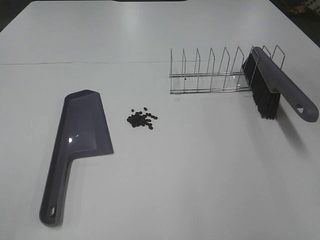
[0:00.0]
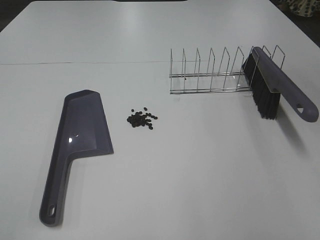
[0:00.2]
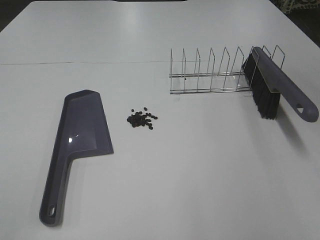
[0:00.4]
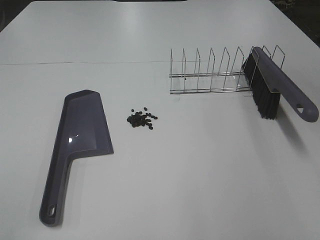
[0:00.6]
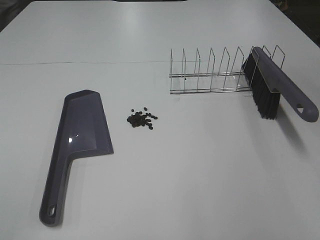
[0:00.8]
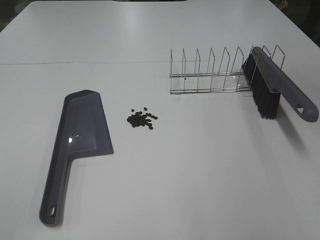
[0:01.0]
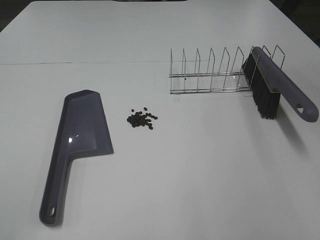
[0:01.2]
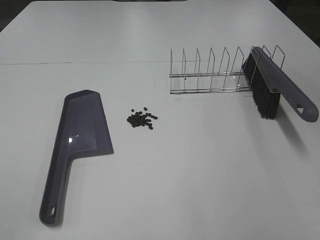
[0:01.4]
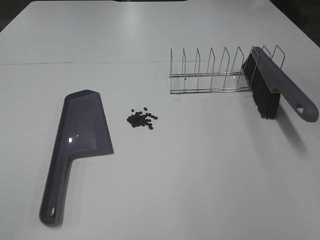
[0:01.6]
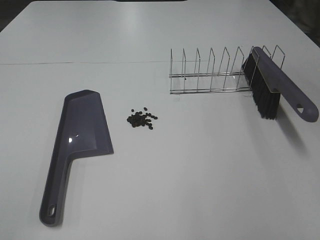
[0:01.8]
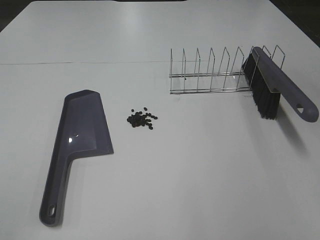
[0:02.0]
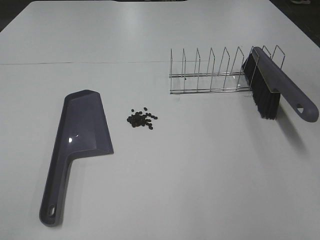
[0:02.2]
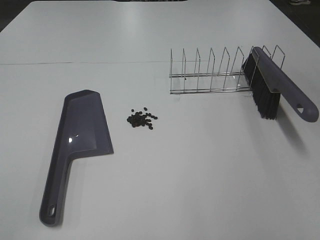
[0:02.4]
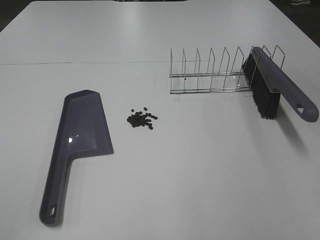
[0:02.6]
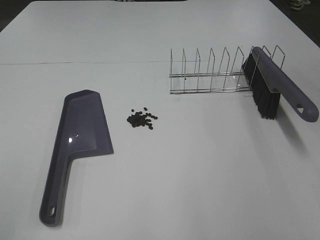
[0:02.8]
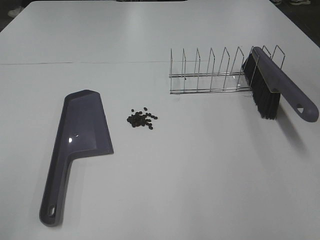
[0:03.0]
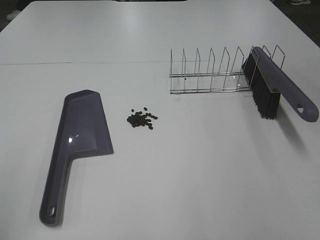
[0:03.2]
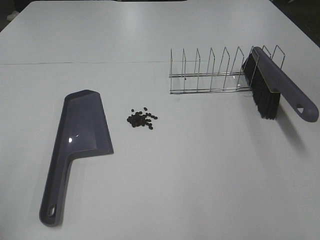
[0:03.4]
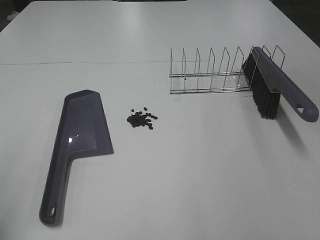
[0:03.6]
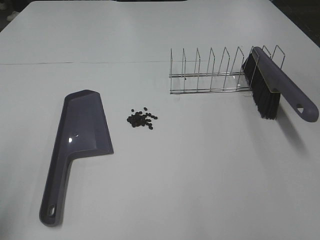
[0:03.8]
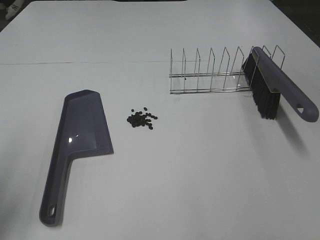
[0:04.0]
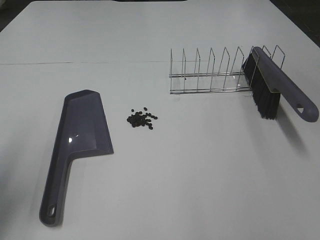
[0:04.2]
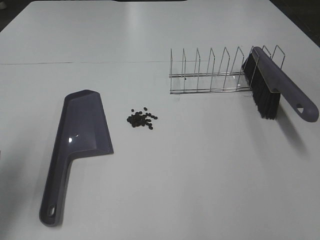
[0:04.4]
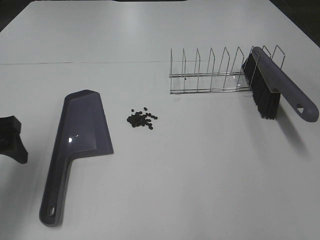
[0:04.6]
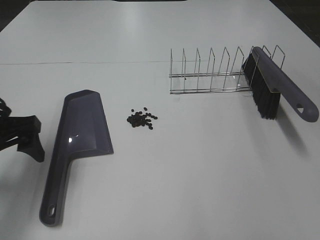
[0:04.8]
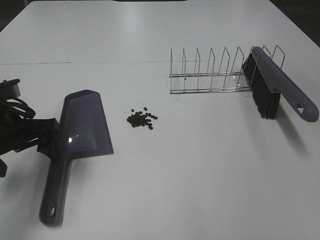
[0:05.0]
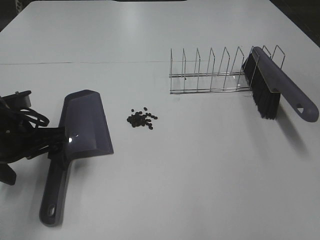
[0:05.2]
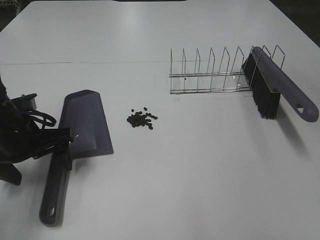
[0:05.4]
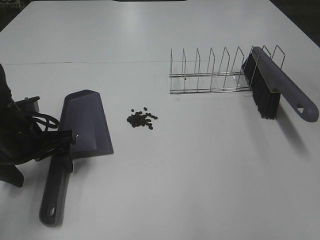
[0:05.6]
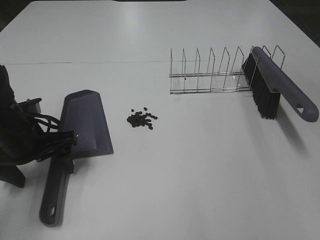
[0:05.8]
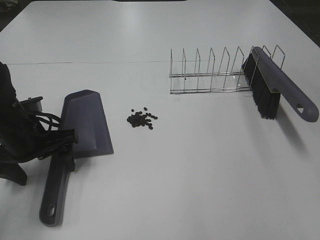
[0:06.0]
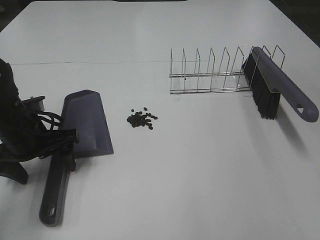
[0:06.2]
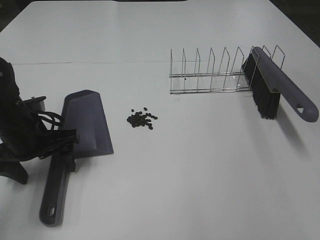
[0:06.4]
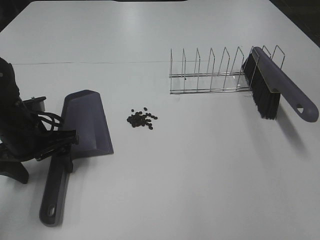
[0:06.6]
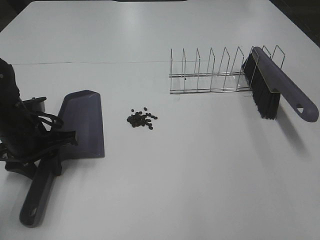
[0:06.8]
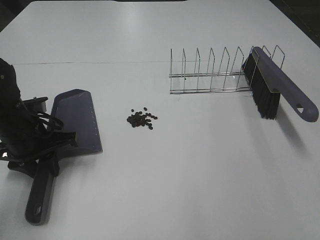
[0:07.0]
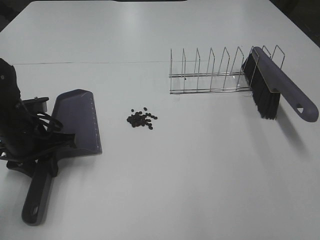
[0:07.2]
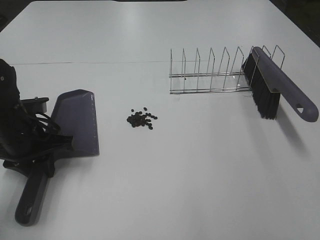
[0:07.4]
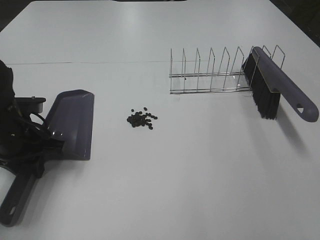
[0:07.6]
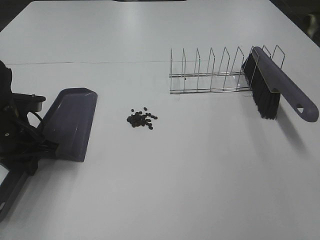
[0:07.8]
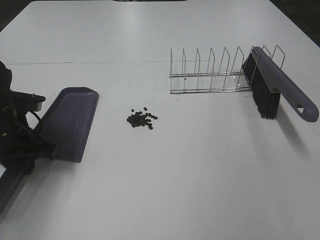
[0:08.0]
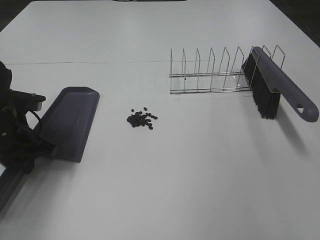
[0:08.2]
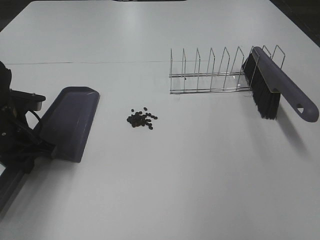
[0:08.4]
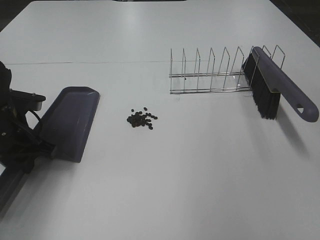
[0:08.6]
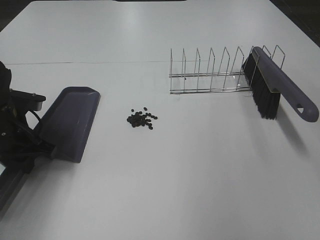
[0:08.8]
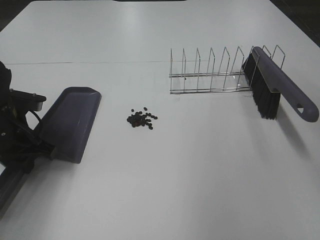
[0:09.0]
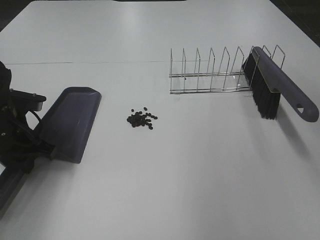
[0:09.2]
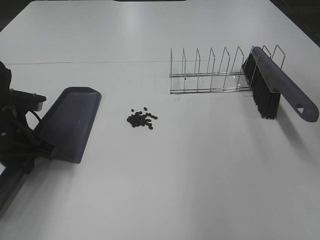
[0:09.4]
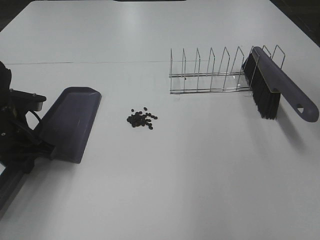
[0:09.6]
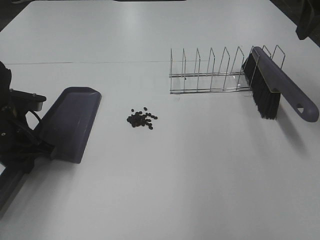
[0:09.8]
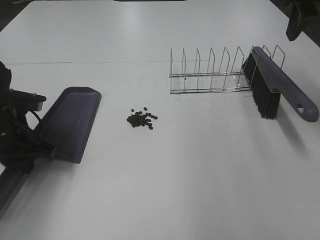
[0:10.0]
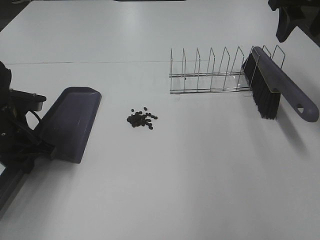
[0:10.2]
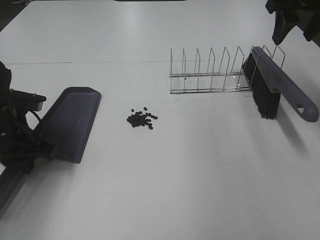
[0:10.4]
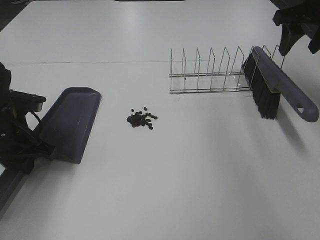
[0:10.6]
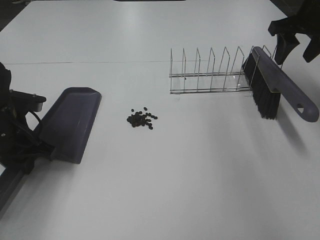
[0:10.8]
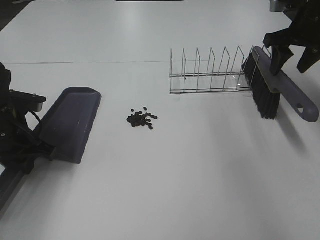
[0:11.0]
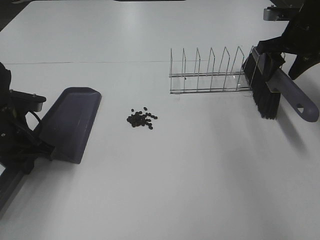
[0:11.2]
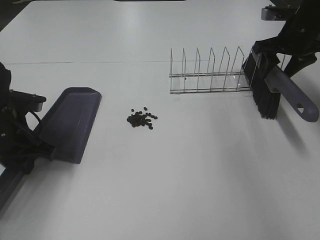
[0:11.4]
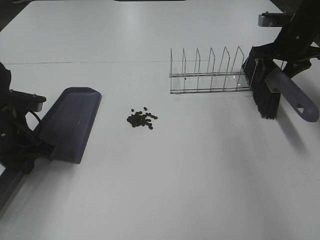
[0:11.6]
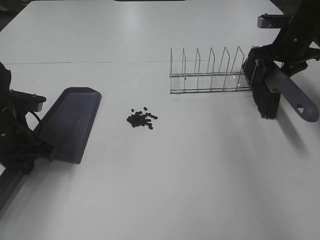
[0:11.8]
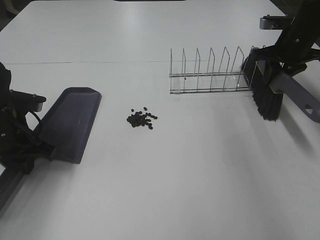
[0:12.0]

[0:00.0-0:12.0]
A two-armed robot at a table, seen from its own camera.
Task of the whole recording: Sweep Coffee Bean.
Step, 0:00.0 to 0:06.8: Left hand: grab the dustpan.
Step, 0:07.8 to 0:12.0: Right hand:grab the broom.
0:00.0 to 0:01.6: Both grippers stay about where they are.
0:01.6 to 0:03.0: The grippers make only small movements.
0:03.0 to 0:04.4: The left gripper goes approximately 20 cm forward and downward.
0:04.4 to 0:06.0: The left gripper moves downward, forward and to the right, some 15 cm.
0:06.0 to 0:07.6: The left gripper closes up.
0:09.0 to 0:10.4: The right gripper heads forward, covering roughly 25 cm.
0:10.4 to 0:12.0: The right gripper is displaced downward by some 15 cm, and closes its fingers.

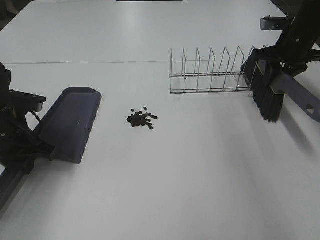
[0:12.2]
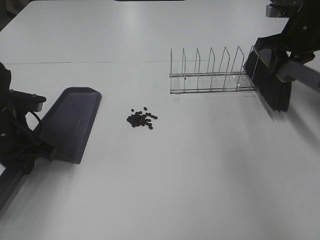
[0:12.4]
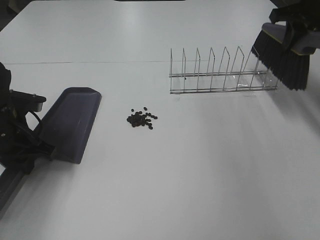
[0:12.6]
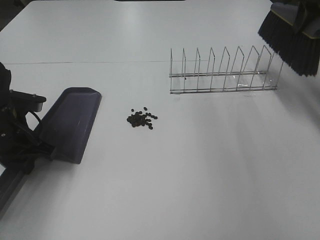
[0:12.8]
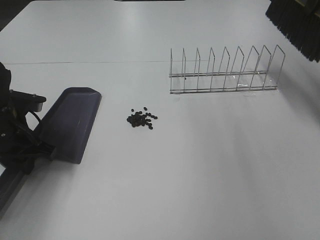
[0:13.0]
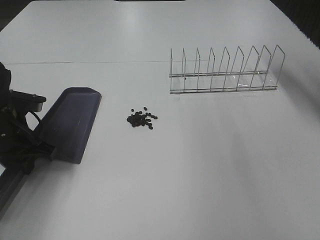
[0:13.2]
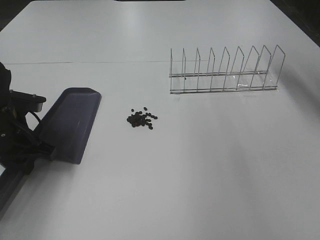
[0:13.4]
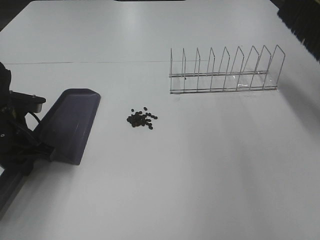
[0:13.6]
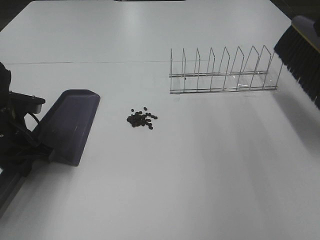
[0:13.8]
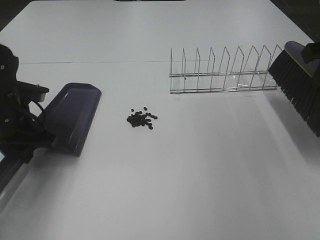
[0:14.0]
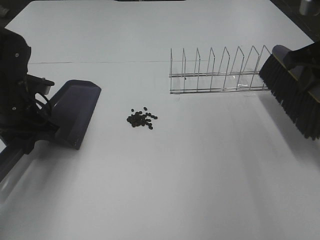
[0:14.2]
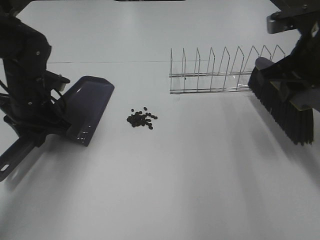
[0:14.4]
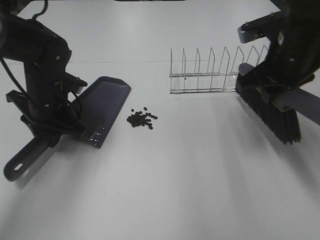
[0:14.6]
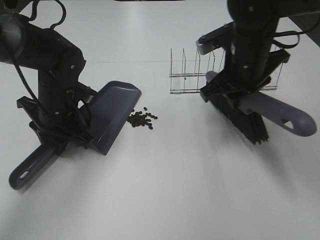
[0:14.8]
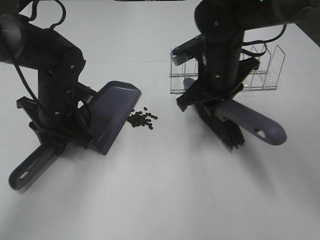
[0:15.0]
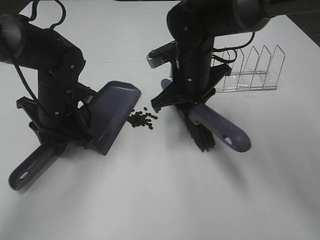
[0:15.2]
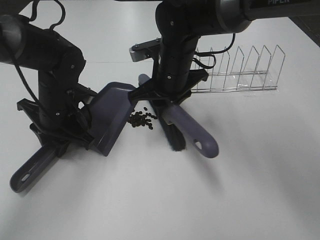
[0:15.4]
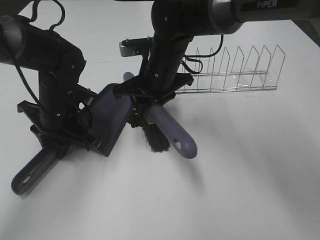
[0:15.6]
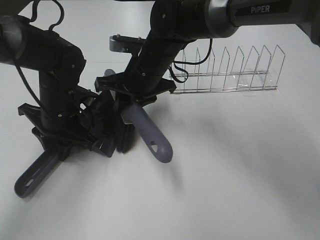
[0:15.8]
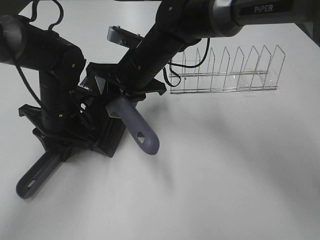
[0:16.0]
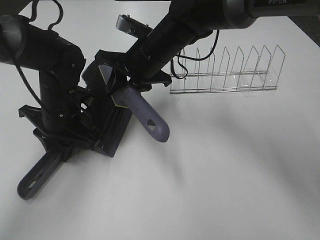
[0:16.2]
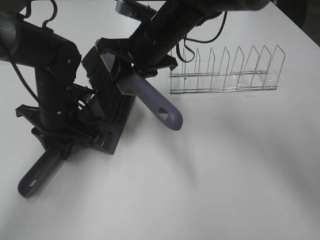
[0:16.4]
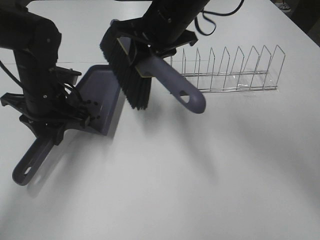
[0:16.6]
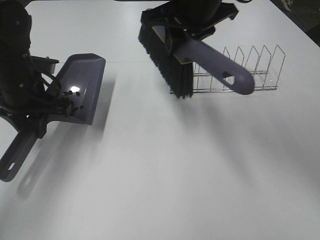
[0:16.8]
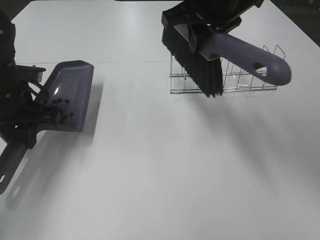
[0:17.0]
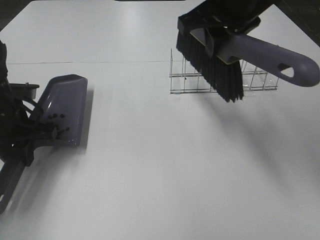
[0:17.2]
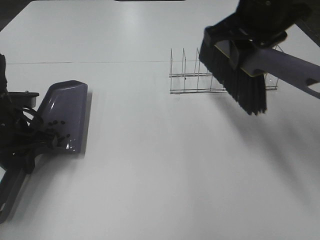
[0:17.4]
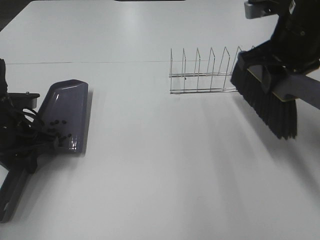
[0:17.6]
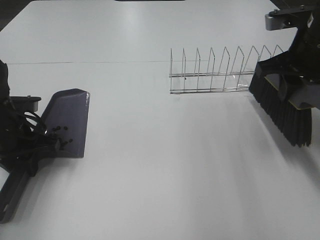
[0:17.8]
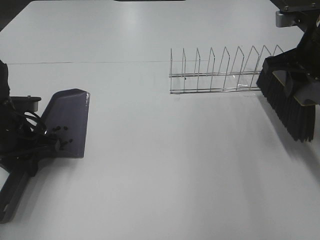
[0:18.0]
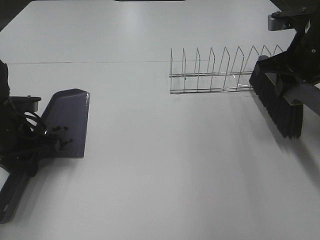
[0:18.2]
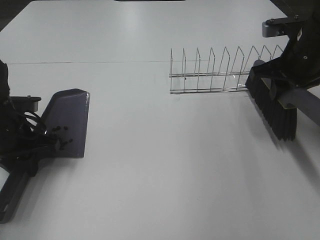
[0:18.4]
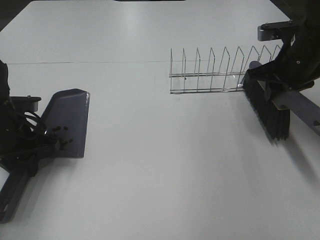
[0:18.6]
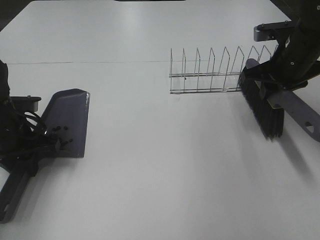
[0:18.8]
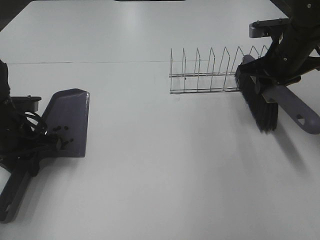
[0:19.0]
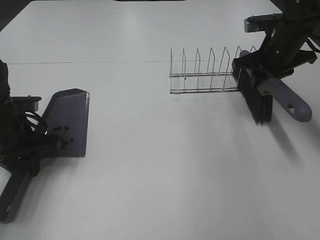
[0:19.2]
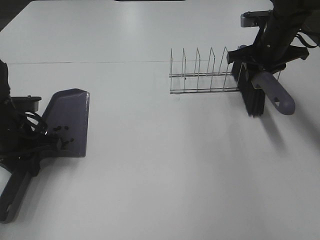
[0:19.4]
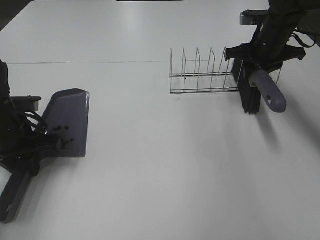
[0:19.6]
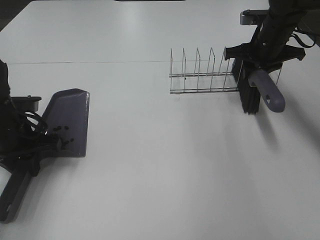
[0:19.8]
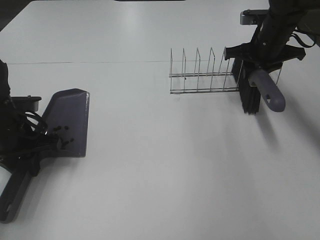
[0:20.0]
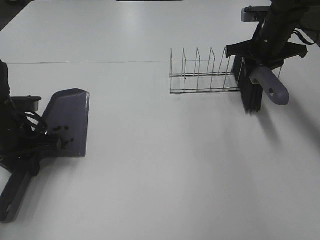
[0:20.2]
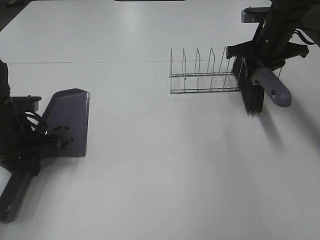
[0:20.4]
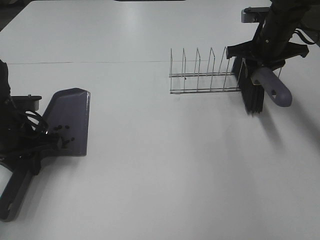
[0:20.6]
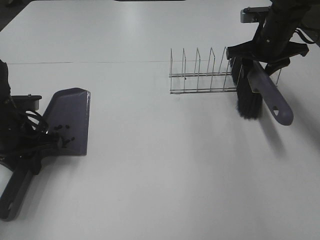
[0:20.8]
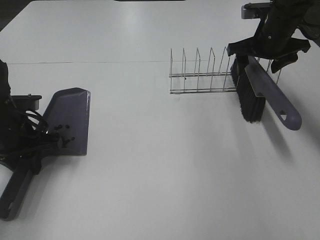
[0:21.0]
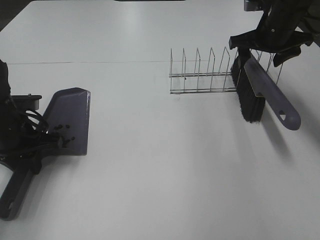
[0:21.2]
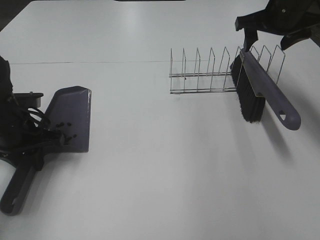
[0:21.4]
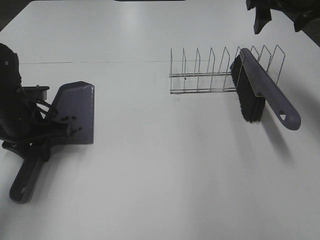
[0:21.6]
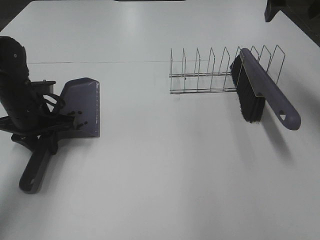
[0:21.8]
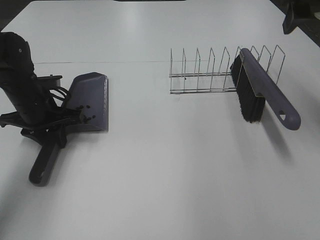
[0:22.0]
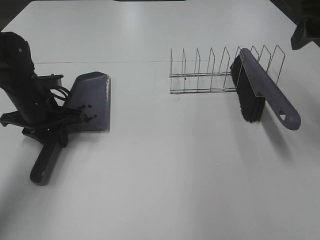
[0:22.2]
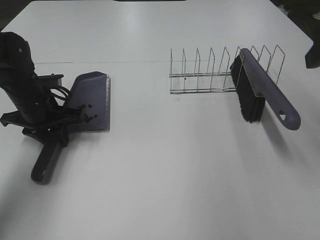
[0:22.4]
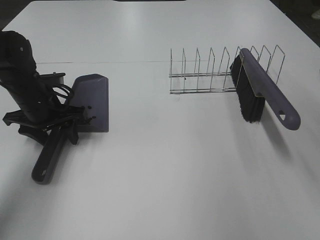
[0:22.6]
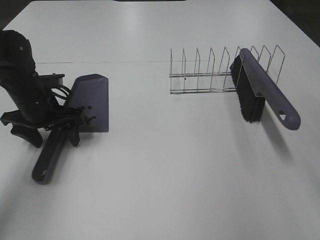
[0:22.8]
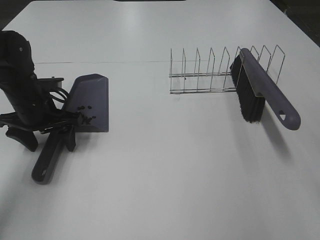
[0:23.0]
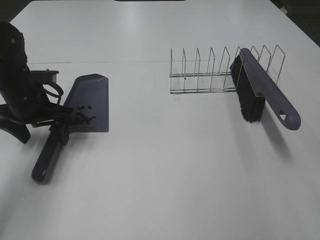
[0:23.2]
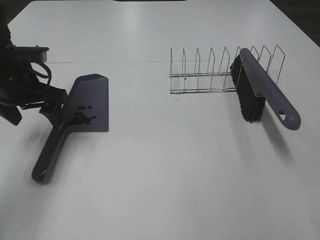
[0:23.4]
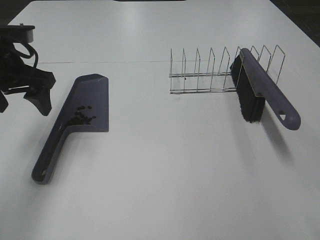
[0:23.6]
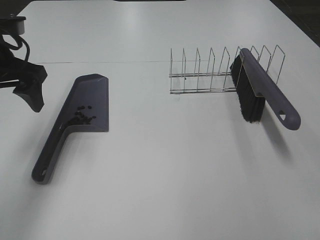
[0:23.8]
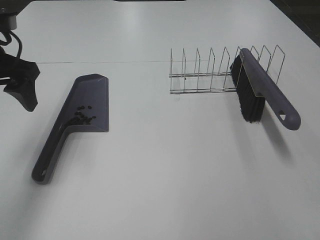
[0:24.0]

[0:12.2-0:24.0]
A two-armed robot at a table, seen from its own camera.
Task of the whole recording: Sweep Coffee Bean.
Step, 0:12.2 to 0:14.6: Left hand: move the dustpan to the left side of the coffee beans.
Step, 0:12.2 to 0:16.2: Right hand:sweep the coffee beans into the dustpan.
Step, 0:16.4 to 0:20.8: Right hand:place the broom on the rack.
Step, 0:21.0 to 0:22.6: Left hand:place the dustpan on the table.
0:12.2 to 0:13.6: The right gripper goes some 25 cm upward and backward.
0:13.6 to 0:15.2: The right gripper shifts about 30 cm to the left and downward; the left gripper travels to the right and forward by approximately 10 cm.
0:15.2 to 0:16.6: The right gripper travels upward by approximately 10 cm.
0:16.6 to 0:18.2: The left gripper shifts roughly 5 cm to the left. Meanwhile the right gripper goes some 20 cm to the right.
0:18.2 to 0:19.6: The right gripper is displaced forward by approximately 10 cm.
0:19.6 to 0:21.0: The right gripper opens its fingers.
0:21.0 to 0:22.6: The right gripper goes approximately 30 cm backward and upward. Meanwhile the left gripper travels forward by roughly 5 cm, and opens its fingers.
0:22.6 to 0:24.0: The left gripper goes roughly 15 cm upward.
